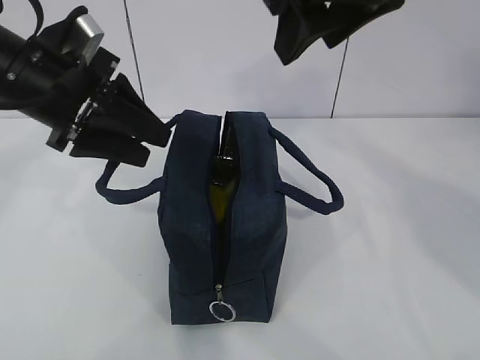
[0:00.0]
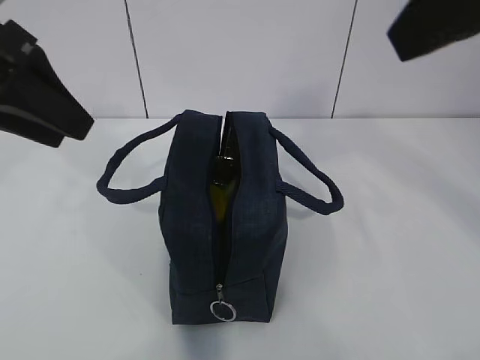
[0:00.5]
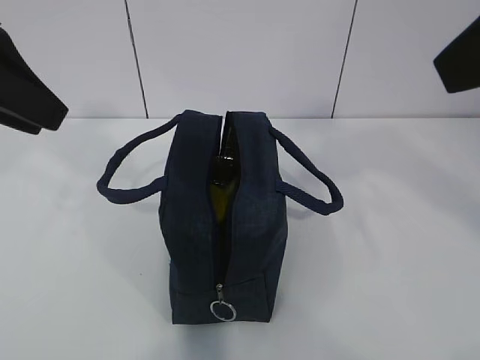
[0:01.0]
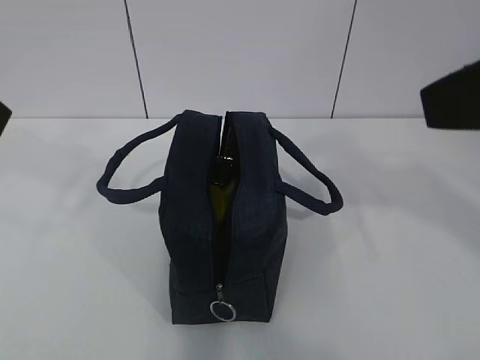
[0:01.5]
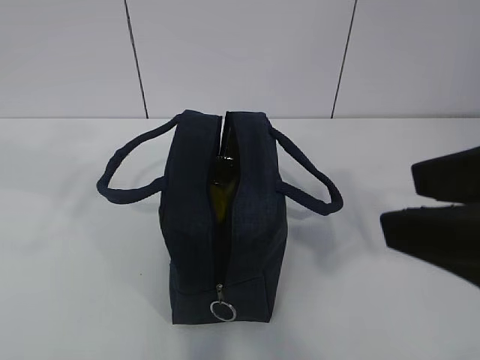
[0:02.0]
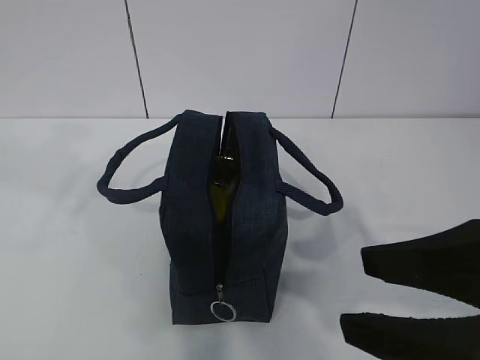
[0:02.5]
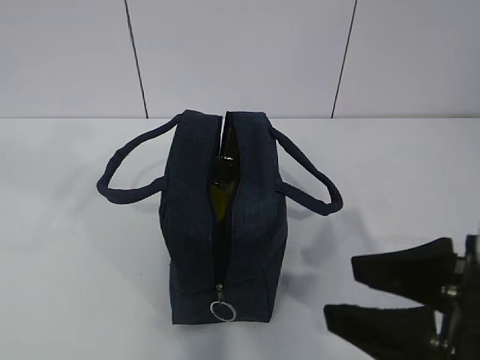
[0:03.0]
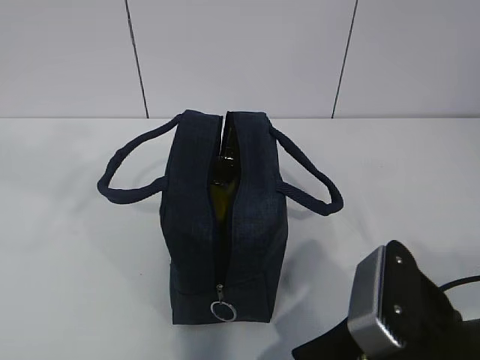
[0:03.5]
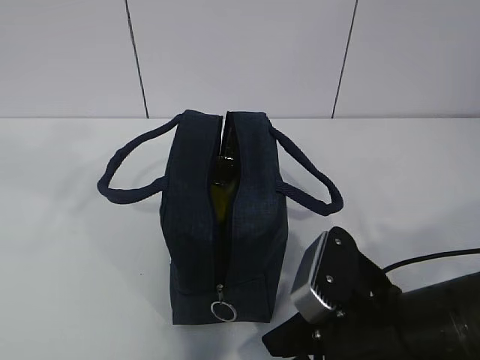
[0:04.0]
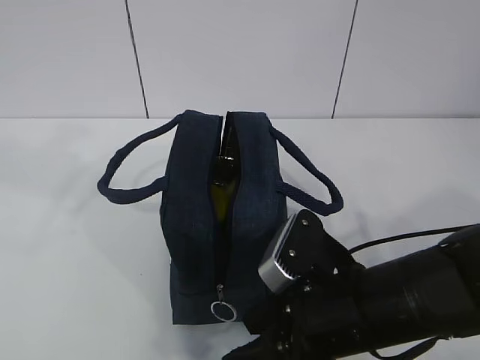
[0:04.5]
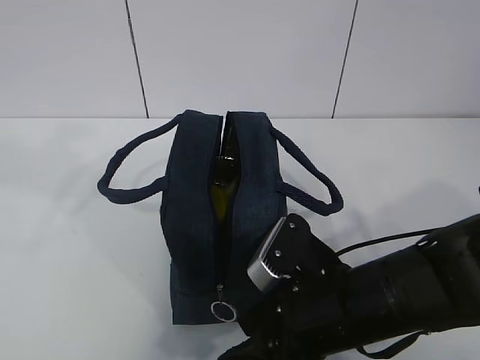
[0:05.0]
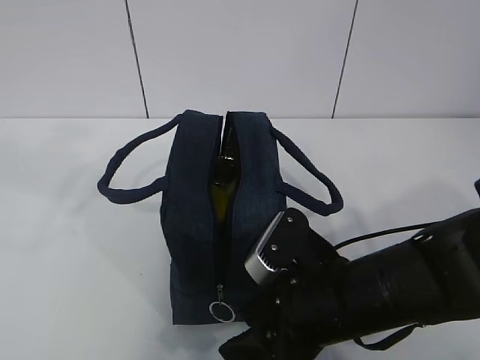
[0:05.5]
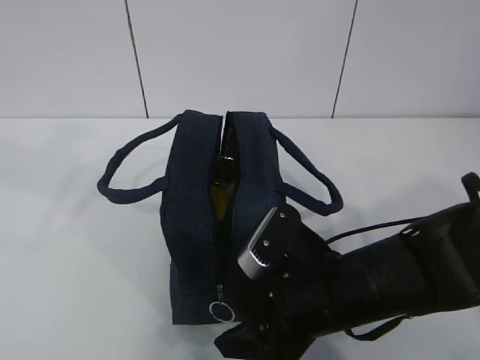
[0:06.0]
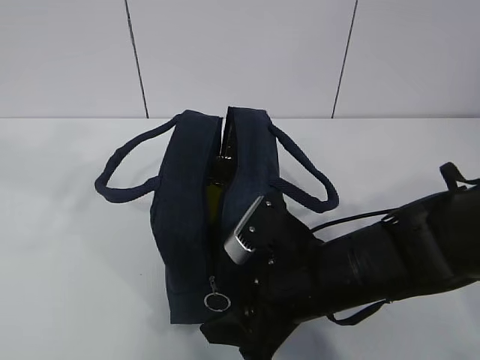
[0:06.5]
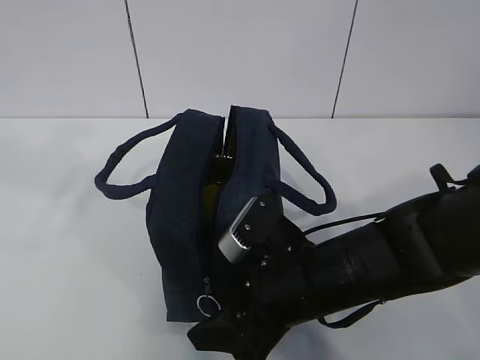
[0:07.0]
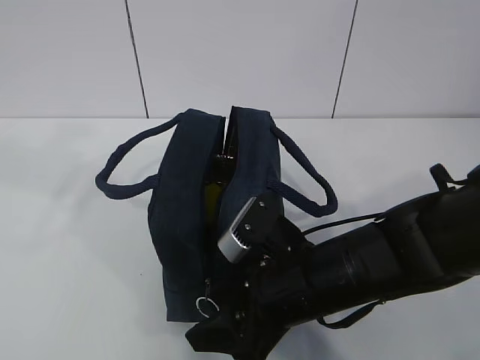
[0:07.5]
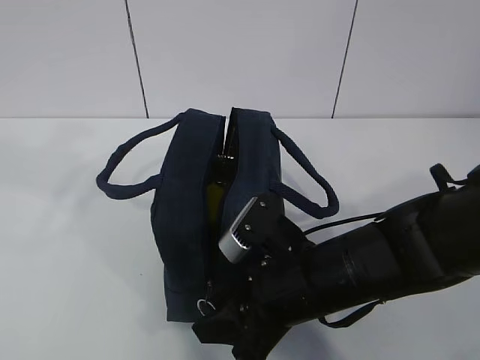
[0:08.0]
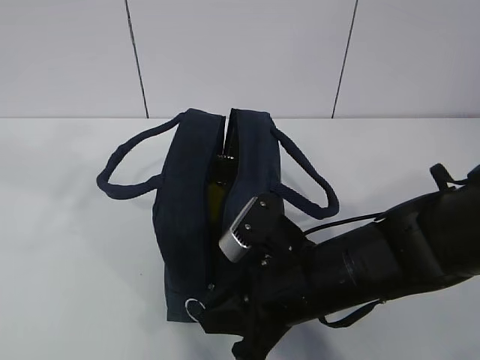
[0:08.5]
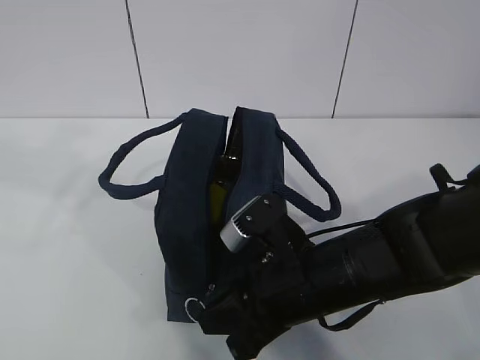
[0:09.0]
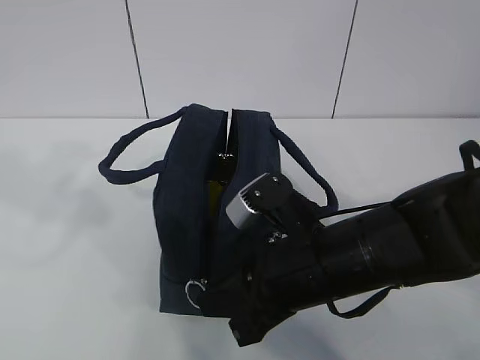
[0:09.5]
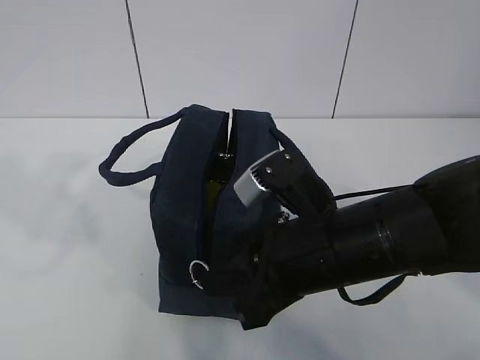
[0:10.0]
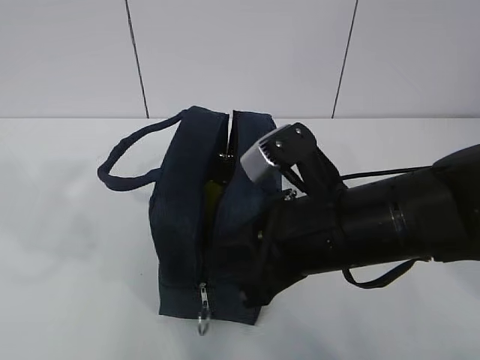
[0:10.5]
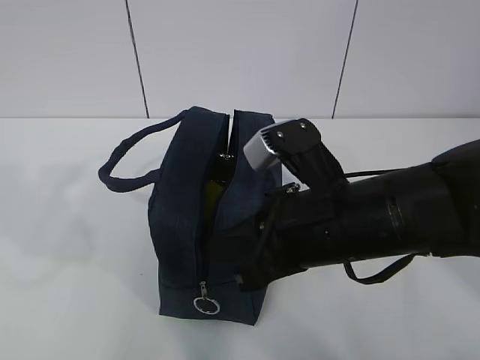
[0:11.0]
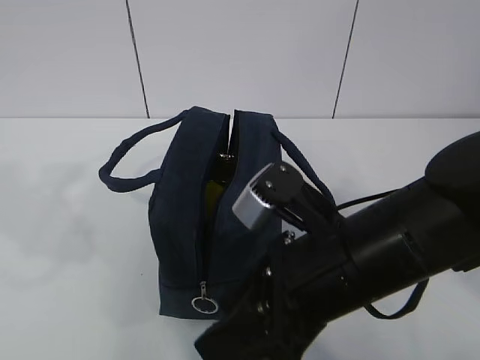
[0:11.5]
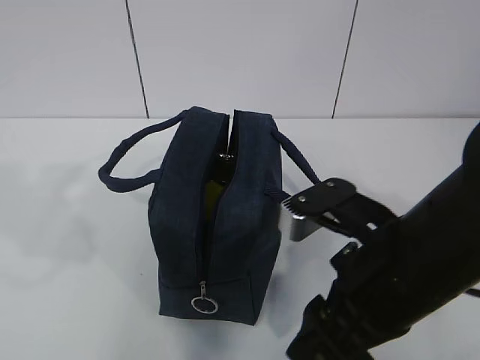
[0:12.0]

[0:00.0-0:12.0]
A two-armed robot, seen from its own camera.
0.0 to 2.0 s: The left gripper travels backward and upward by some 20 cm, while the right gripper travels backward and to the right by about 20 cm.
2.0 to 4.0 s: The right gripper heads downward, covering roughly 20 cm.
4.0 to 6.0 s: The right gripper travels forward by roughly 5 cm.
6.0 to 8.0 s: The grippers move only a little.
8.0 to 10.0 s: The left gripper is displaced downward by about 5 cm. Meanwhile the right gripper goes roughly 5 cm upward, and closes up.
10.0 to 12.0 s: The right gripper ends up about 5 cm from where it was, and opens up.

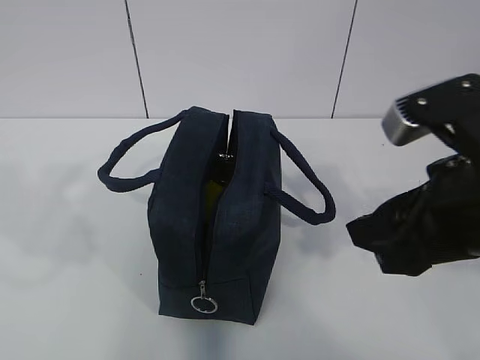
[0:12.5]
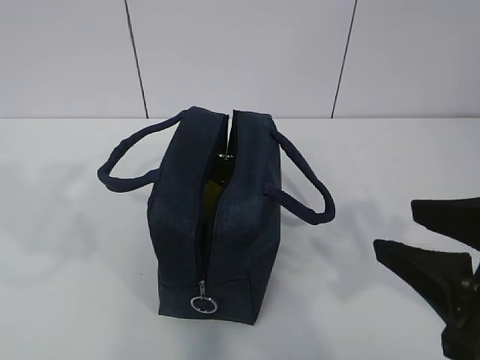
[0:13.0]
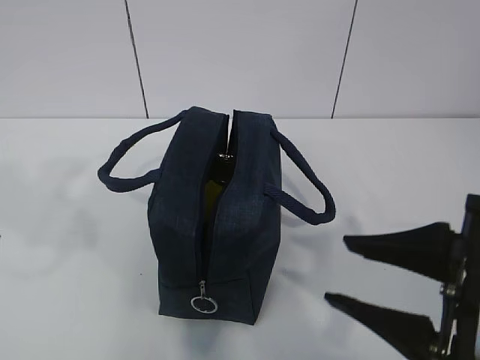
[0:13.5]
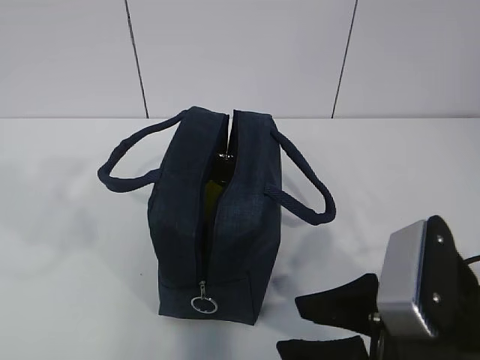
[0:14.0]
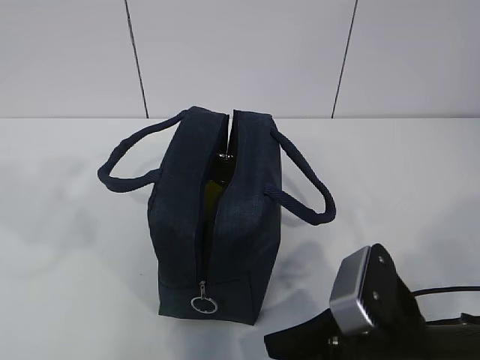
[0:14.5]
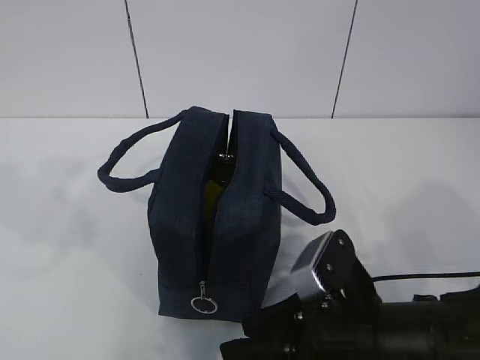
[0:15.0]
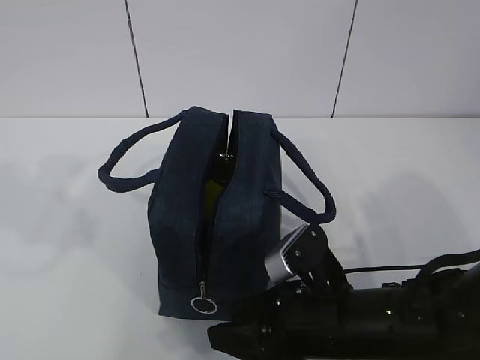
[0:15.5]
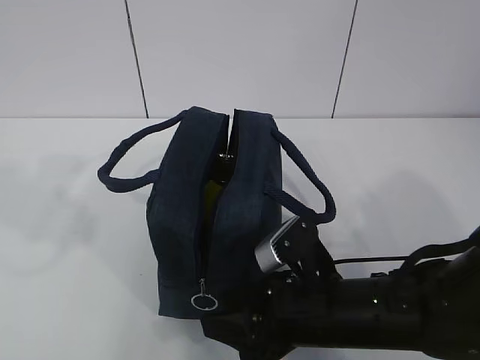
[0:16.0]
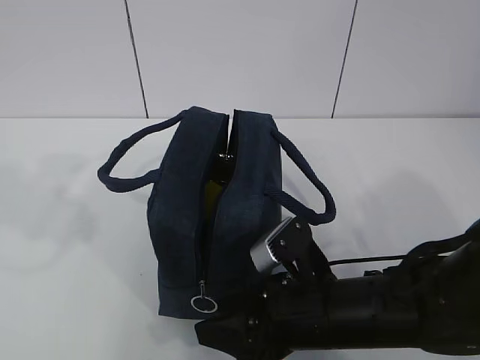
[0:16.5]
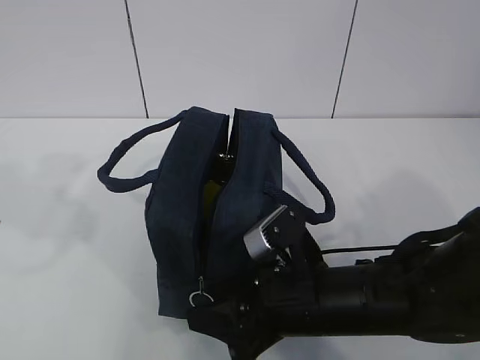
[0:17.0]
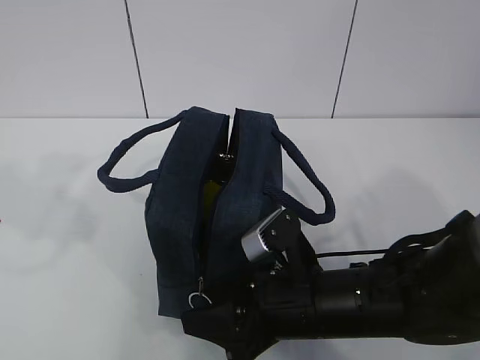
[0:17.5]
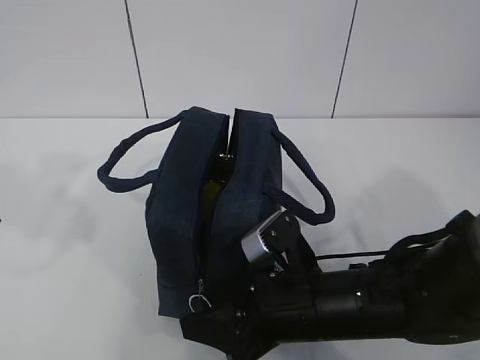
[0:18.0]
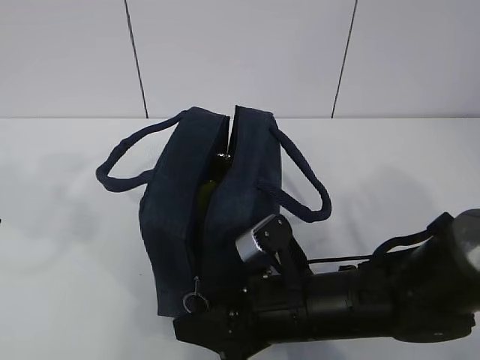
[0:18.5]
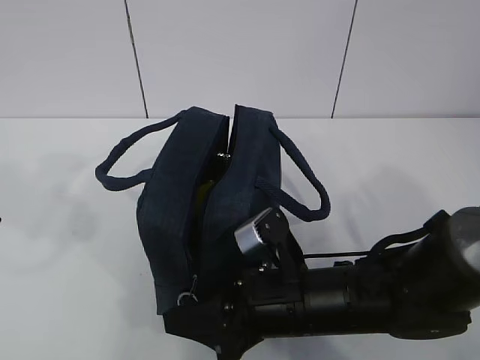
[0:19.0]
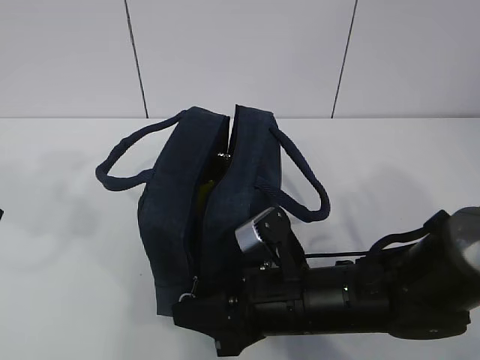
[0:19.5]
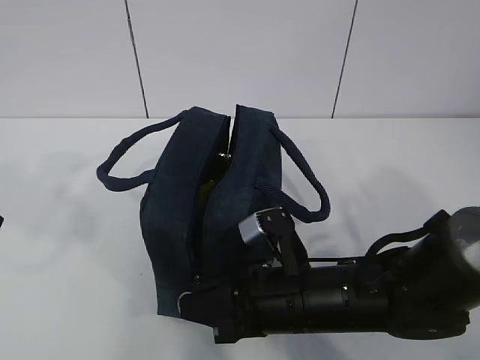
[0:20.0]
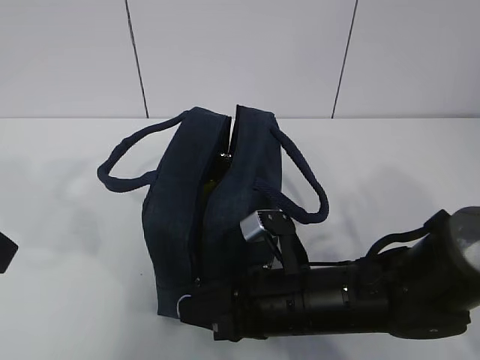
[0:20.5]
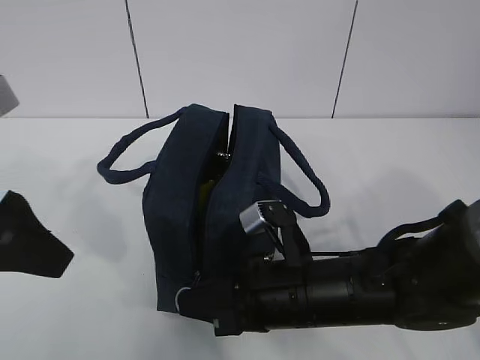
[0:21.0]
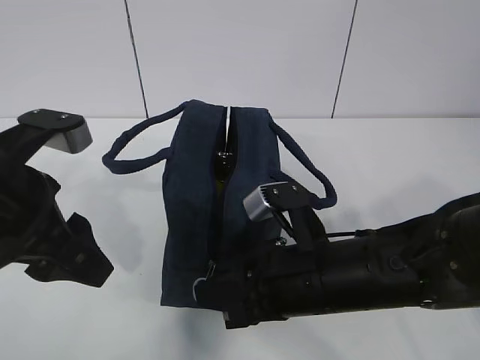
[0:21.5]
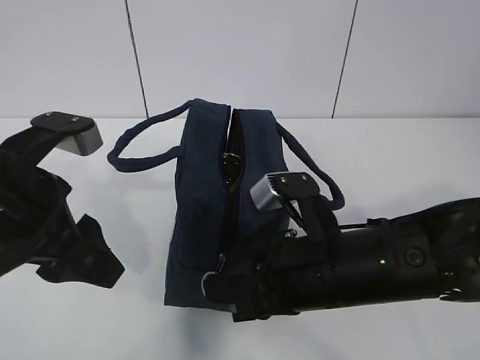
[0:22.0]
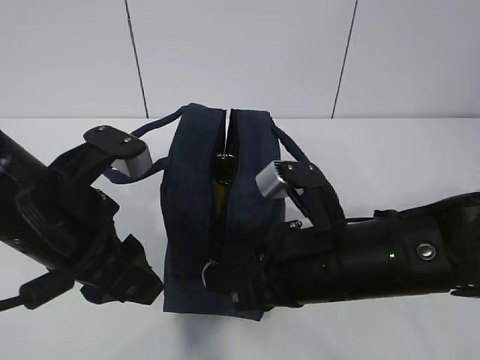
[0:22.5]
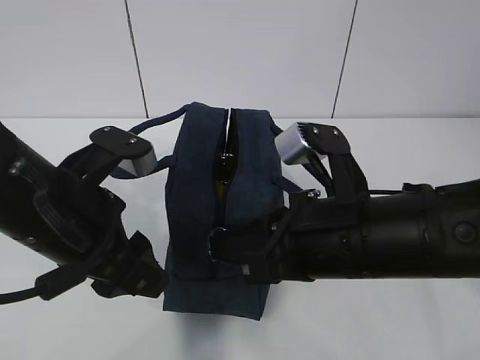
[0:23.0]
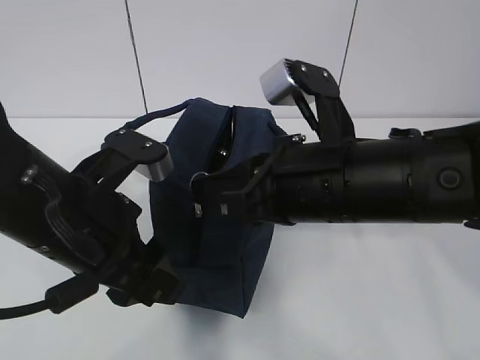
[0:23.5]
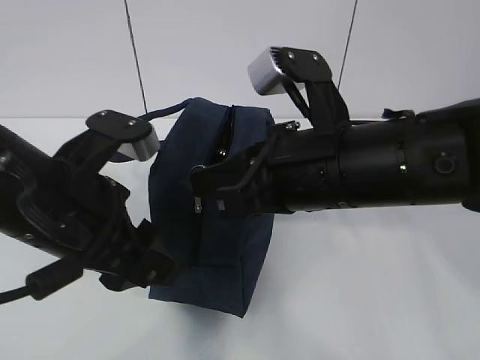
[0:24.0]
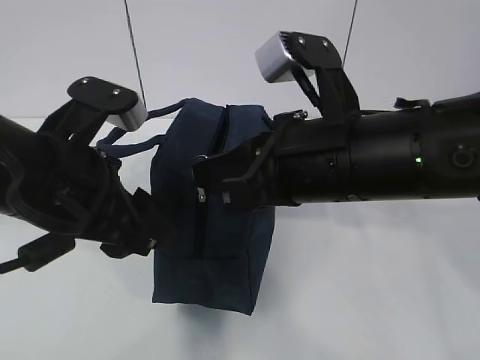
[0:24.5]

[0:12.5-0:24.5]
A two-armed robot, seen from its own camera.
Step, 12.5 to 16.5 s: Pull the zipper with your right hand.
12.5 to 14.5 s: The right gripper heads downward, covering some 15 cm.
14.5 to 16.5 s: The right gripper goes some 5 cm forward.
16.5 to 18.5 s: There are only small adjustments of the grippers.
18.5 to 20.5 s: The right gripper closes its fingers.
20.5 to 22.5 s: The right gripper moves upward, about 10 cm; the left gripper heads to the right and downward, covering about 15 cm.
22.5 to 24.5 s: The right gripper is displaced upward by about 10 cm.

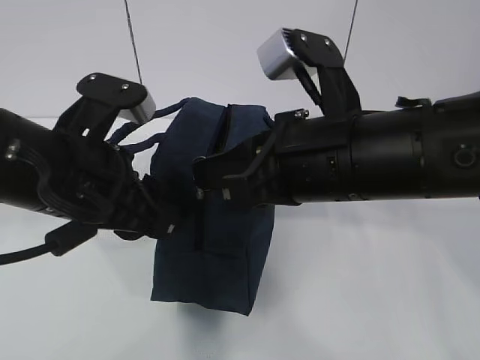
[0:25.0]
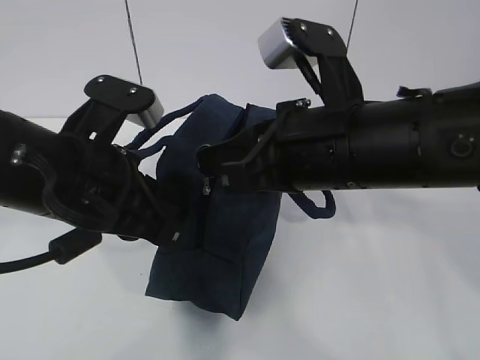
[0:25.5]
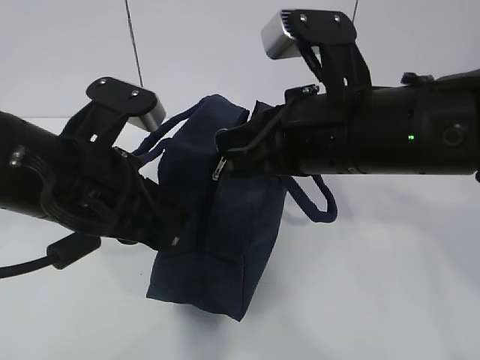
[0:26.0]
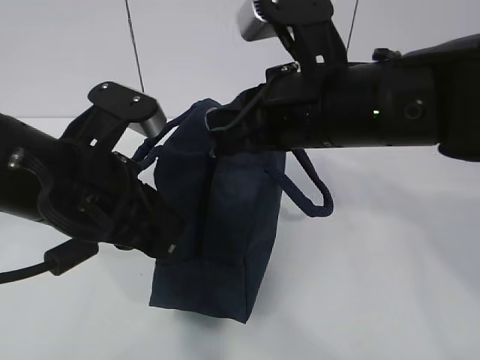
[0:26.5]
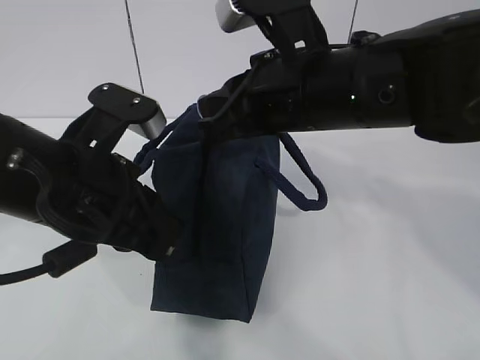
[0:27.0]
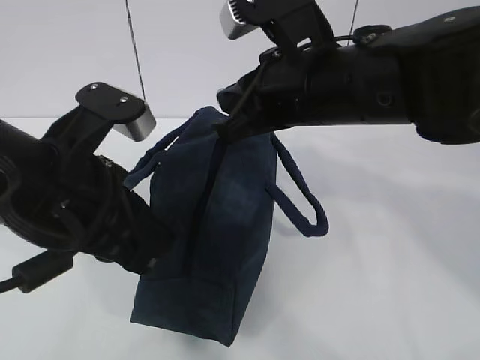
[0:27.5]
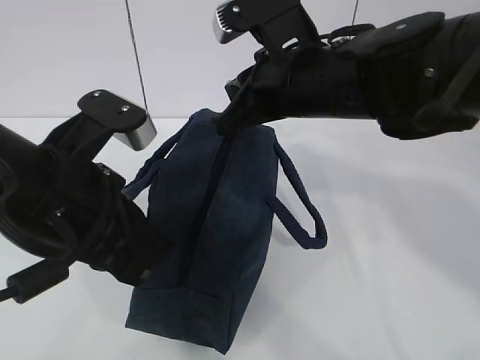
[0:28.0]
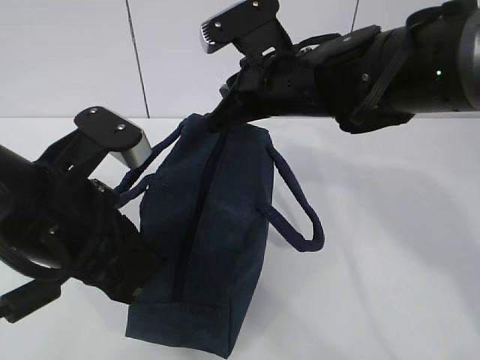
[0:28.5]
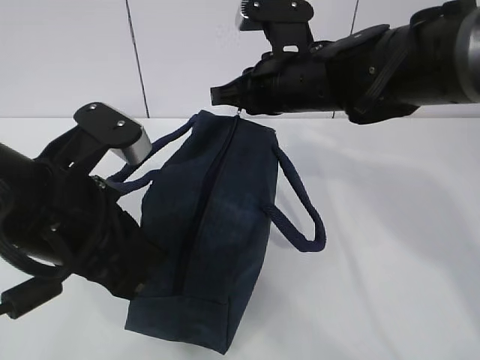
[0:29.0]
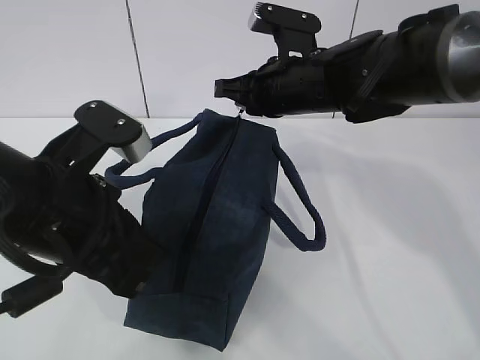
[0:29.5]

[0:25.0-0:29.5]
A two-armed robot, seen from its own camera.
25.0 to 27.0 s: The right gripper heads forward, covering approximately 5 cm. The left gripper closes its fingers.
27.0 to 29.5 s: The right gripper moves forward and downward, about 10 cm.
